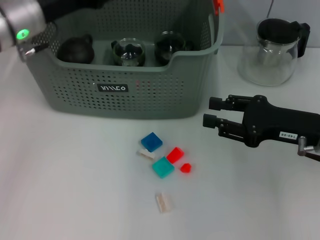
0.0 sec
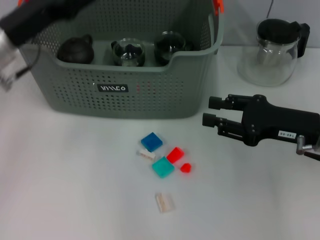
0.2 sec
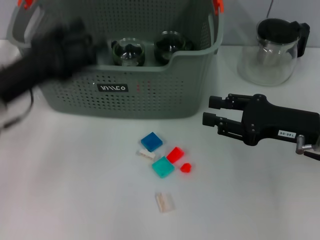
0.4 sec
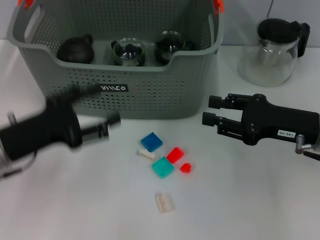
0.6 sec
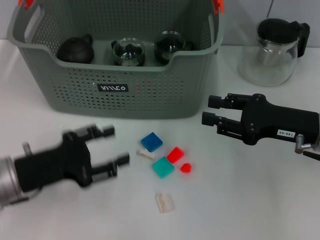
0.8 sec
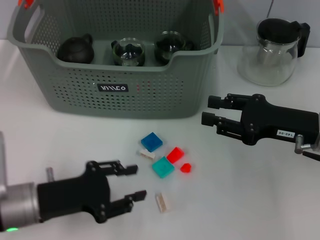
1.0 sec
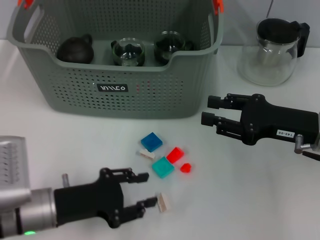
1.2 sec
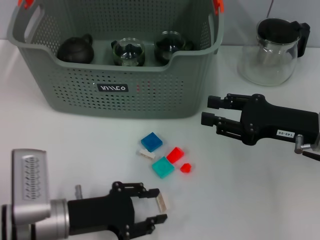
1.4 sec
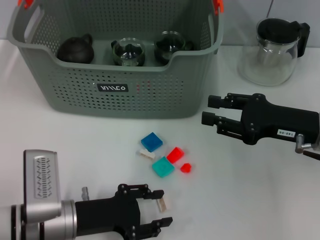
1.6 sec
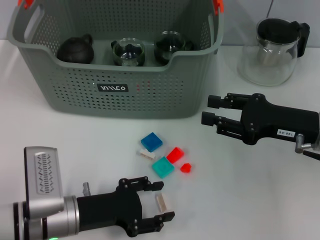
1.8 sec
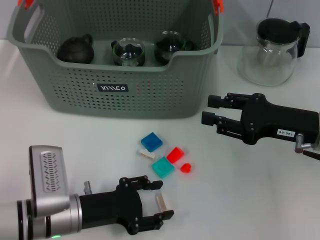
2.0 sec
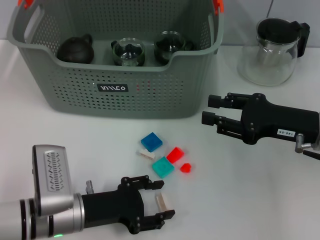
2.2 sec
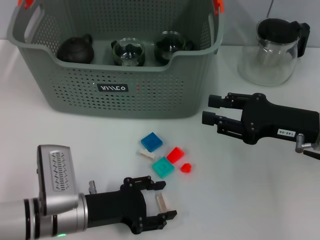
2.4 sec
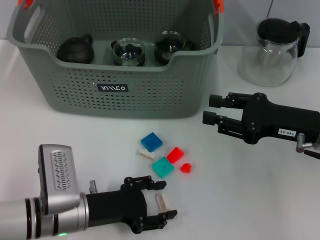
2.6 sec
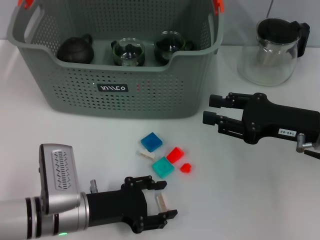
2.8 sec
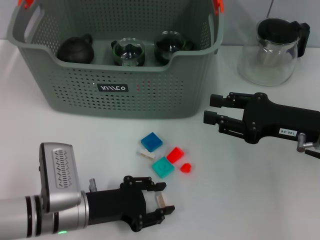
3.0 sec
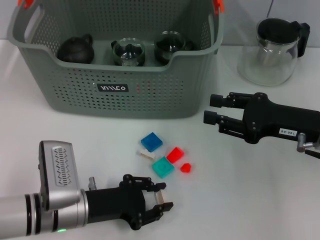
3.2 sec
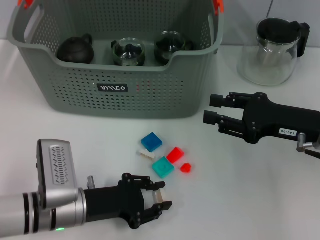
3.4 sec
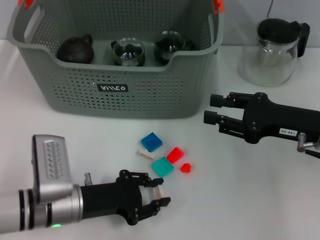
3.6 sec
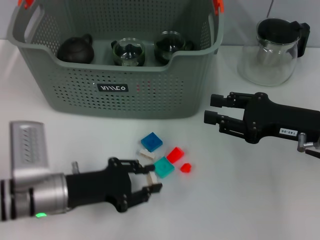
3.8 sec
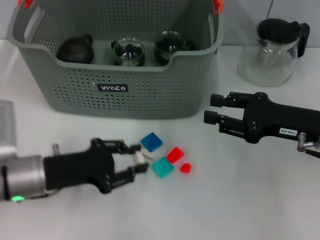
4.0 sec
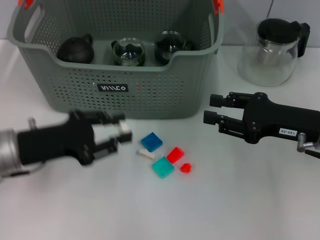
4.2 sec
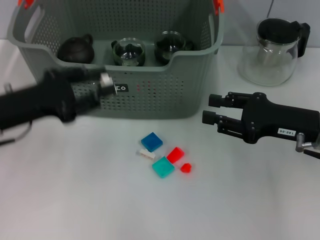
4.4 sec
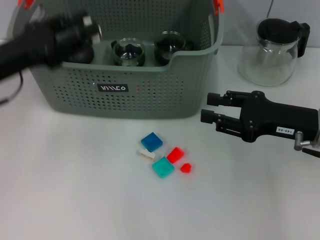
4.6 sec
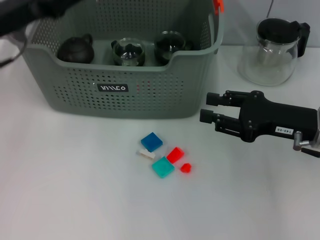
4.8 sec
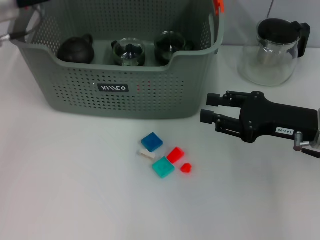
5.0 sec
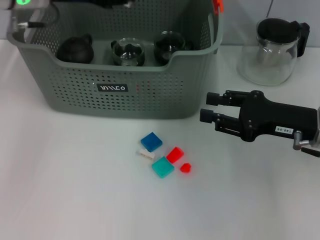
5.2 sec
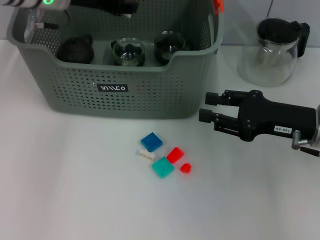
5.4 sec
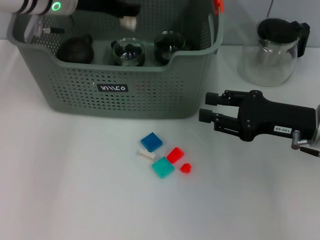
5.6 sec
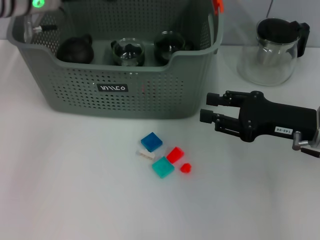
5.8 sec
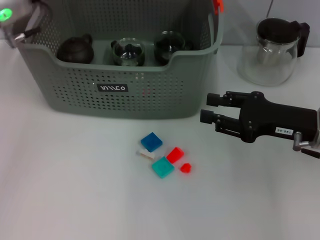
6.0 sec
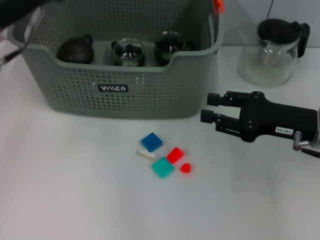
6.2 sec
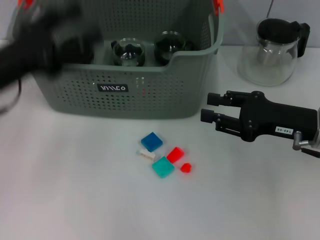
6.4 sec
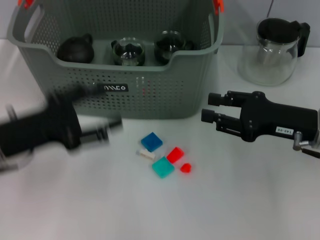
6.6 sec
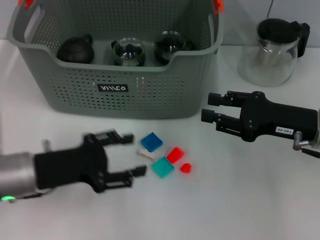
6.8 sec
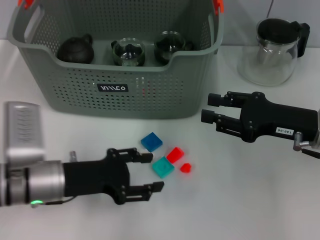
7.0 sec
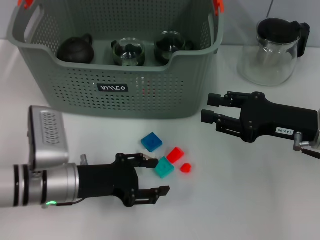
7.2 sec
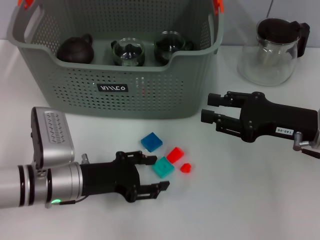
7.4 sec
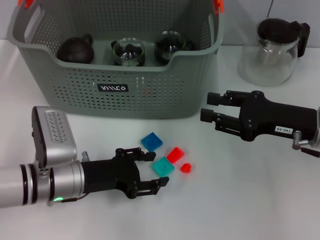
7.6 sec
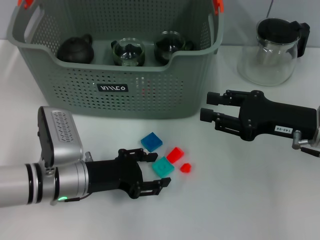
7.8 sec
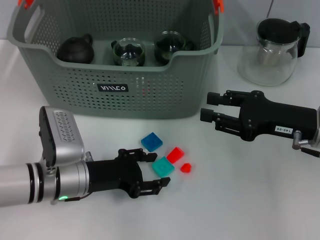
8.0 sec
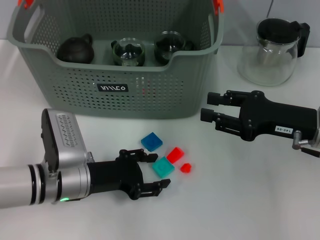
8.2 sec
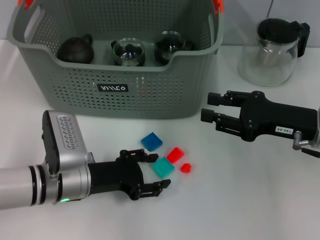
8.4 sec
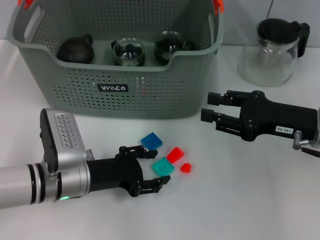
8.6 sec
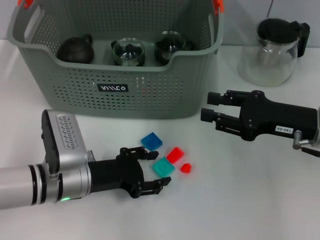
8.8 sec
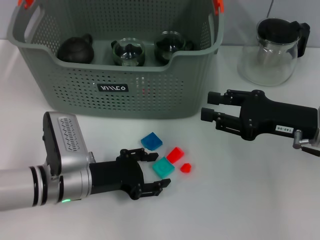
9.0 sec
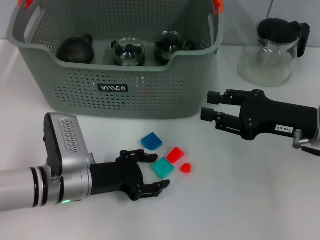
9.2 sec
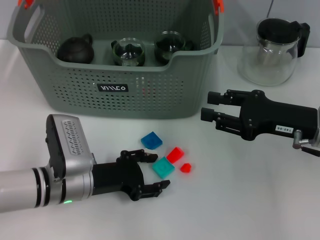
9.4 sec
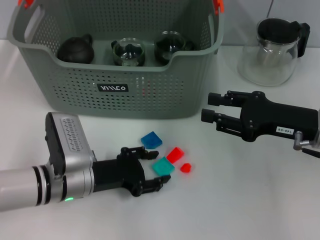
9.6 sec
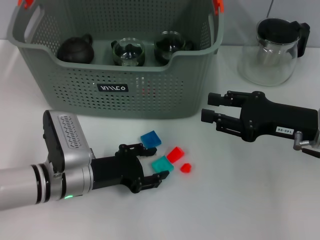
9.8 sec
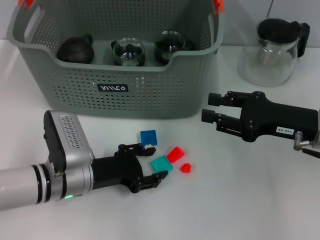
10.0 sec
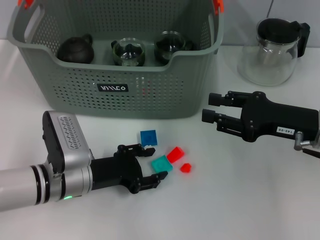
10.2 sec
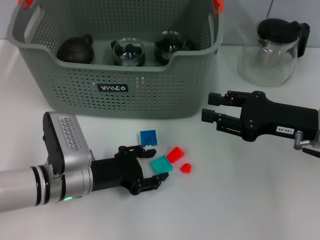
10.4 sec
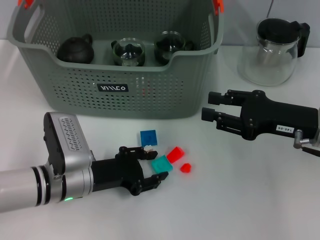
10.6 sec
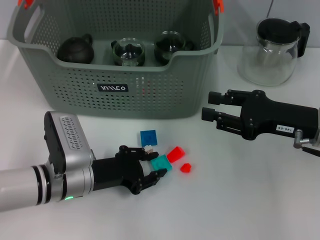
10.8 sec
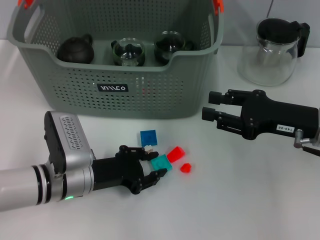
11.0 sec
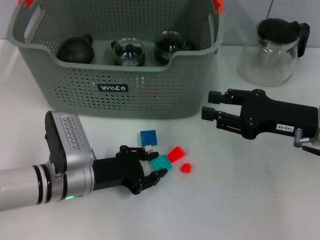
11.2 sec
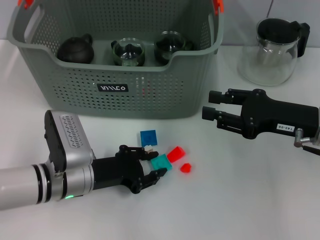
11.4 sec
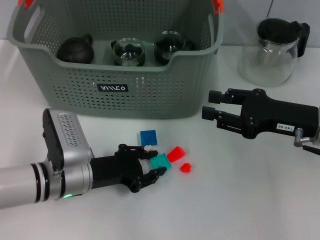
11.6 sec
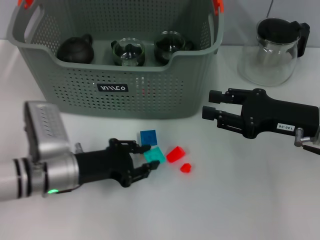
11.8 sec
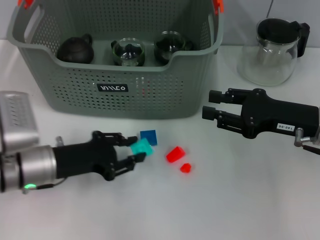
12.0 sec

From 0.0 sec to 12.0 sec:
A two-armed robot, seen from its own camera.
Task of the whole recording: pick up the teacup on the table and place it into the storage bin, pick up the block on the table and place it into the storage bin.
Step, from 0.2 sec to 3.2 sec: Grasp the white block with left gripper.
Step, from 3.4 sec to 6.0 sec: Place the white block in the storage box with left gripper.
Step, from 6.2 sec to 11.0 sec: Grasp the light blue block with left gripper.
From 0.0 sec to 1.6 sec: The left gripper is displaced backward and downward by some 25 cm, and opens and closes again.
From 1.6 sec to 3.0 sec: There are only small adjustments of the grippers.
From 3.0 sec to 4.4 sec: The left gripper moves upward and to the left, about 15 cm.
From 4.4 sec to 6.0 sec: The left gripper shifts approximately 15 cm forward and upward.
From 6.0 sec to 7.6 sec: The left gripper moves downward and backward, some 20 cm.
From 7.6 sec to 9.0 sec: The grippers make only small movements.
From 9.0 sec to 10.4 sec: The two grippers keep their place.
From 10.4 sec to 12.0 sec: The left gripper ends up roughly 5 cm from where it was.

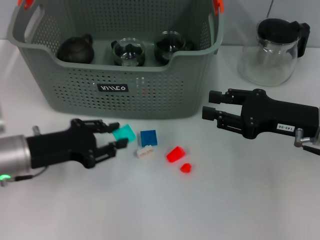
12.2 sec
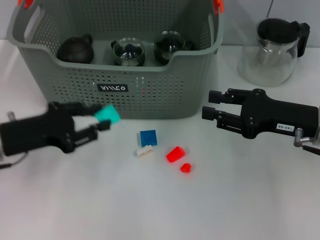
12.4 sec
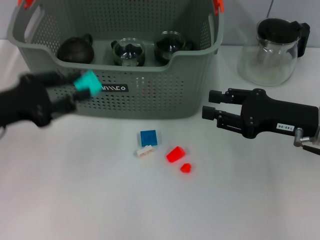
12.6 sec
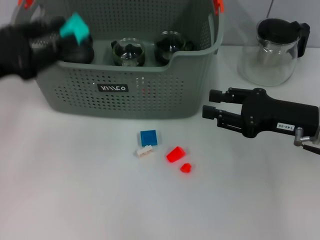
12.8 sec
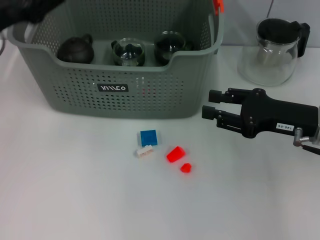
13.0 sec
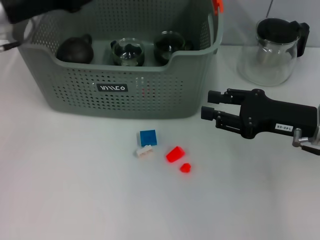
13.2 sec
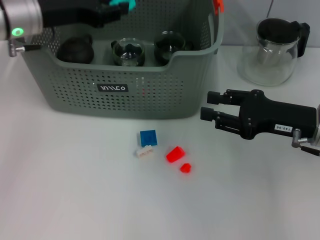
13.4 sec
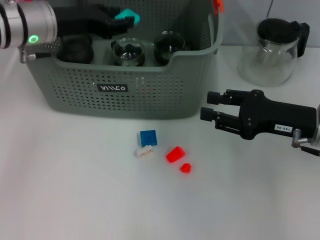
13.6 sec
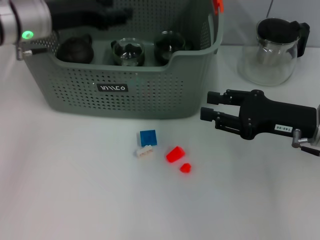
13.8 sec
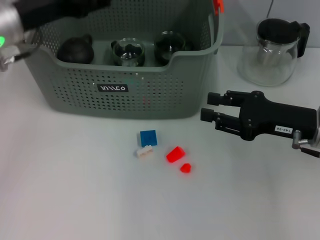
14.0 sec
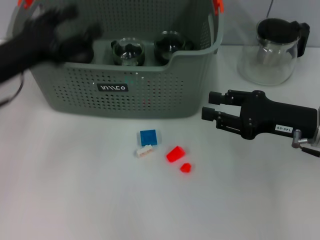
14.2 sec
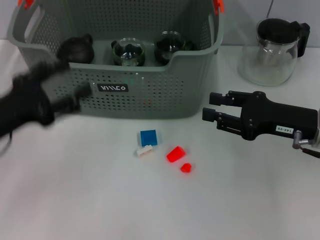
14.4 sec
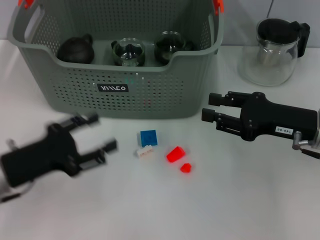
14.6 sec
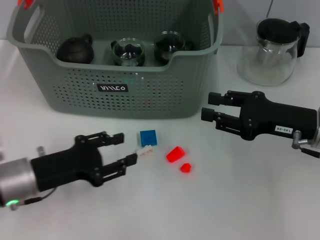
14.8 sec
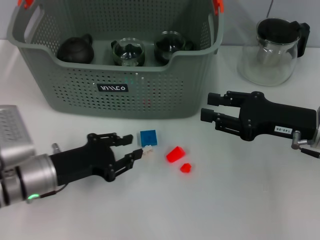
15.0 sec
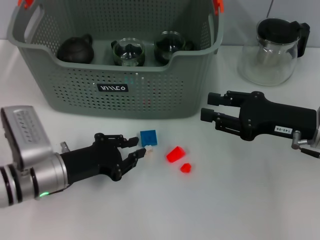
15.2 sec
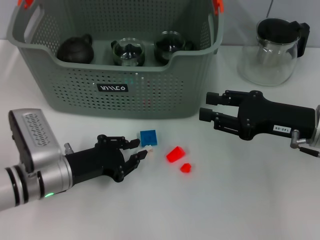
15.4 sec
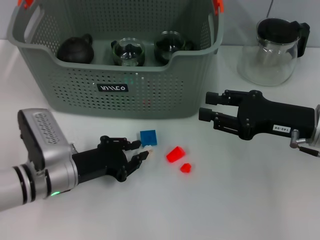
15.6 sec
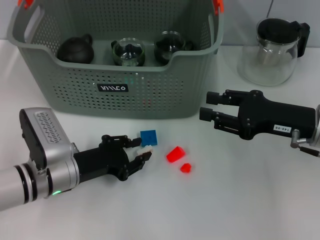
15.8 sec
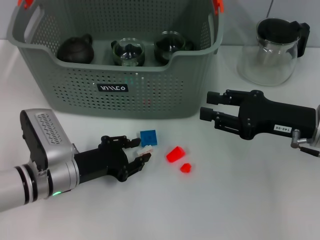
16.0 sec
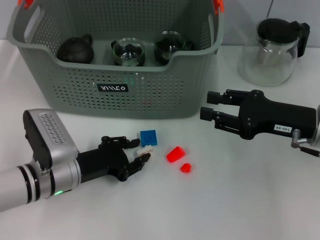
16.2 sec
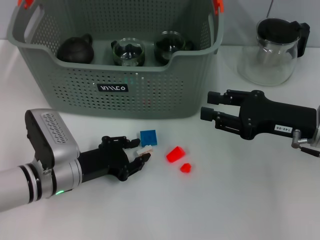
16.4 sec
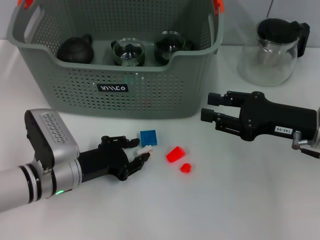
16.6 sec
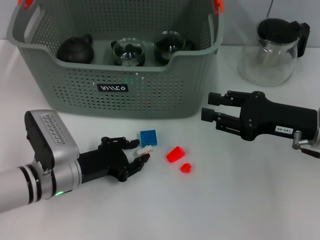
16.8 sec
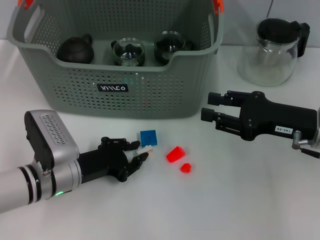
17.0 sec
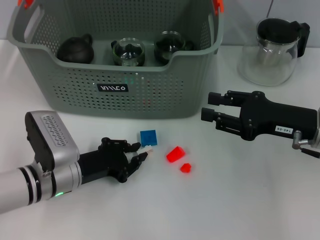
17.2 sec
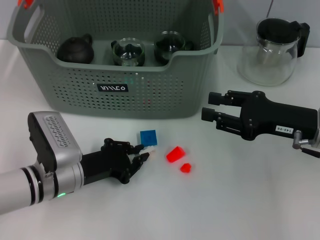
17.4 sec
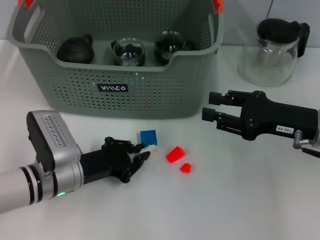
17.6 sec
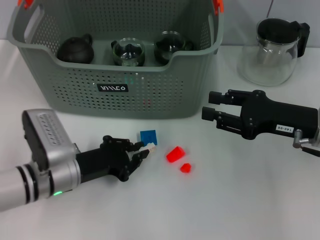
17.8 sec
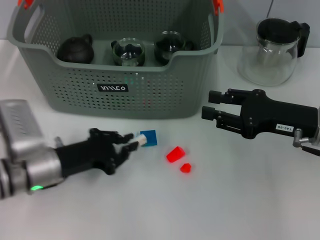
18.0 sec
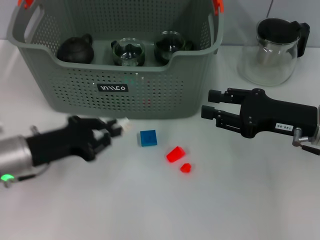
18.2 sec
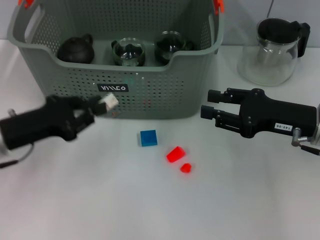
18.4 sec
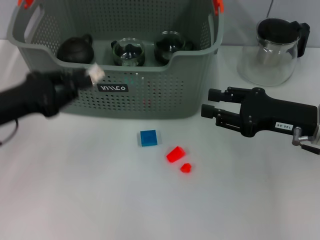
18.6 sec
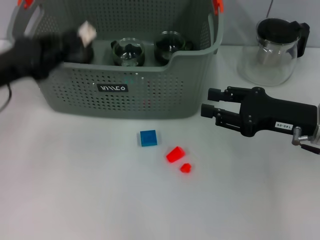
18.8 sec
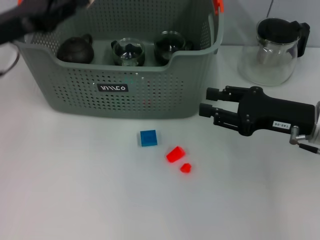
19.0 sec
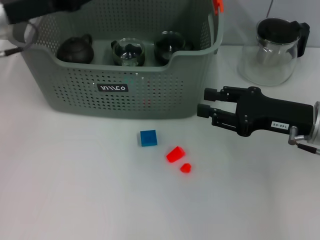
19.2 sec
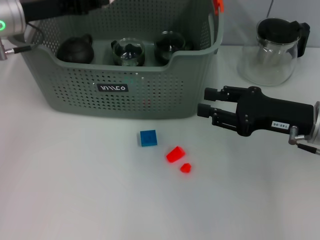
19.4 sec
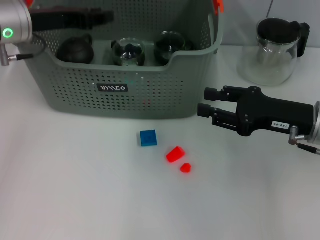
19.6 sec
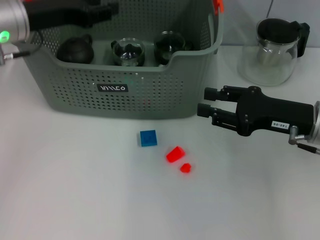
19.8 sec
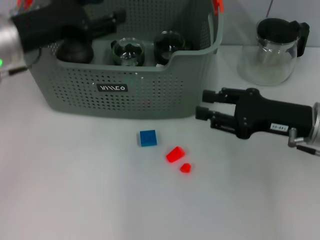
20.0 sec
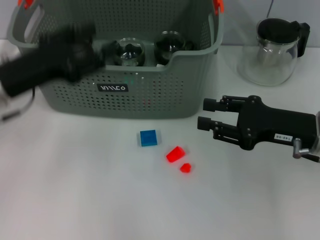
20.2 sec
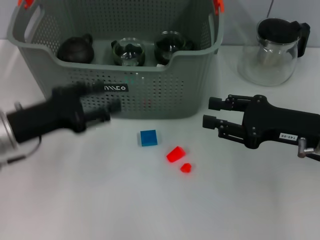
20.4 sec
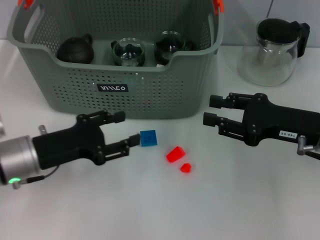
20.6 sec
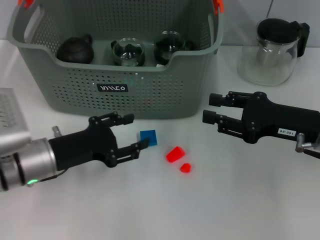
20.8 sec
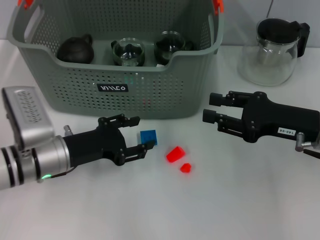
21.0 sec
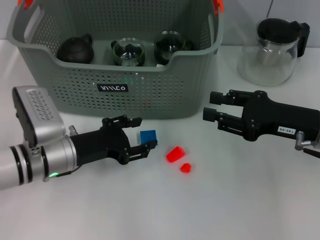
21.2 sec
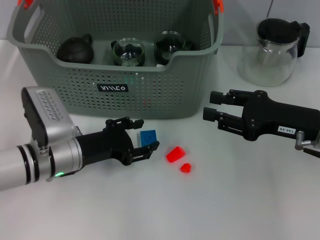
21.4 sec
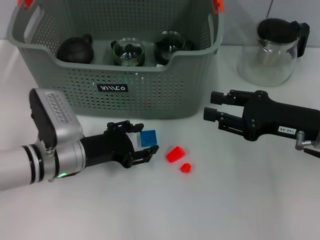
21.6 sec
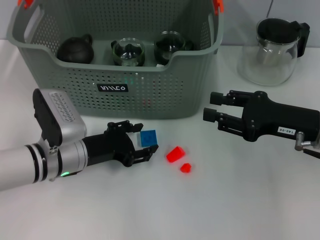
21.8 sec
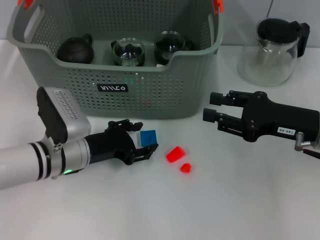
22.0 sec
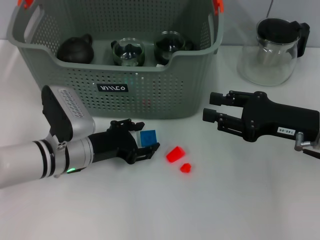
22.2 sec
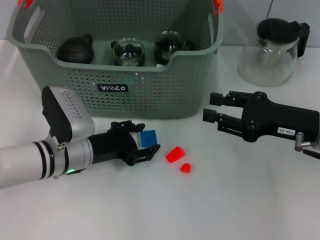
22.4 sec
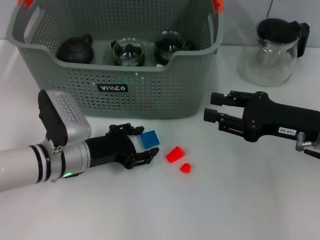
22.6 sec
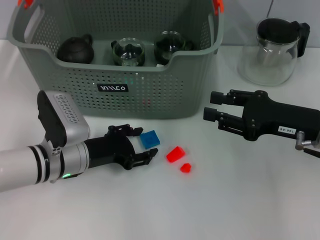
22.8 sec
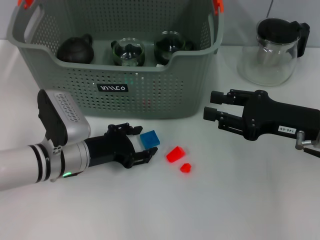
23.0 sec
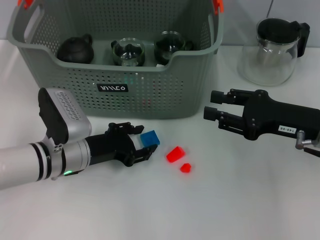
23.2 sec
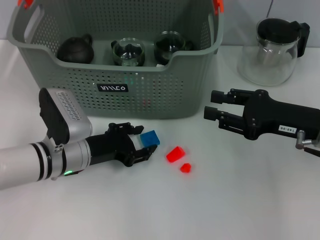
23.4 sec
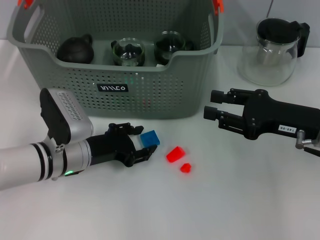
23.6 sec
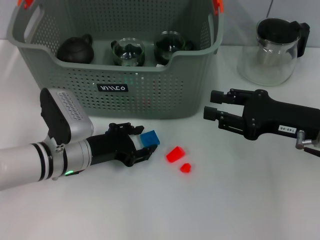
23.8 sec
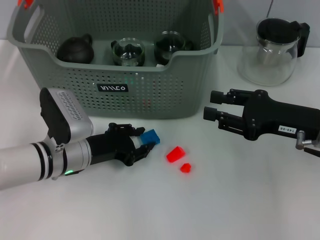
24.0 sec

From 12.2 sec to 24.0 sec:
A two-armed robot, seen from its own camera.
Task of the whole recording: pick up the teacup on the table and place it into the storage bin, pick up the block on the table and place it into the storage bin.
Step, from 12.2 sec to 14.2 sec: Place the light blue block in the storage box with left gripper.
Step, from 14.6 sec to 17.6 sec: Grasp the white block with left gripper.
Step, from 17.8 sec to 20.2 sec: Place the white block in the storage box with left gripper.
Step, from 20.4 sec to 24.0 sec: Grasp the dark blue block with left gripper.
From 12.2 sec to 13.6 sec: The left gripper shifts approximately 20 cm forward and upward.
From 13.6 sec to 15.2 sec: The left gripper goes approximately 20 cm downward and backward, and opens, then closes once more.
From 15.2 sec to 16.6 sec: There are only small adjustments of the grippers.
From 16.6 sec to 18.2 sec: The left gripper moves to the left and upward, approximately 5 cm.
From 18.2 sec to 19.6 sec: The left gripper goes roughly 20 cm forward and upward.
From 19.6 sec to 21.0 sec: The left gripper travels downward and backward by some 20 cm, and opens up.
From 21.0 sec to 22.6 sec: The grippers stay close to where they were, moving slightly.
From 22.6 sec to 24.0 sec: Both grippers stay put.
